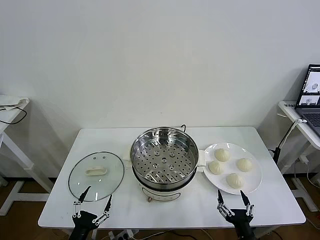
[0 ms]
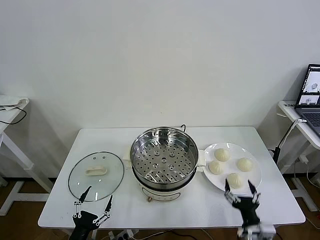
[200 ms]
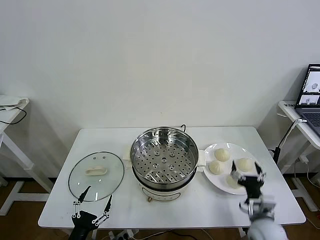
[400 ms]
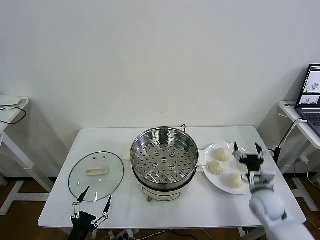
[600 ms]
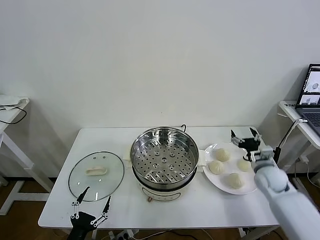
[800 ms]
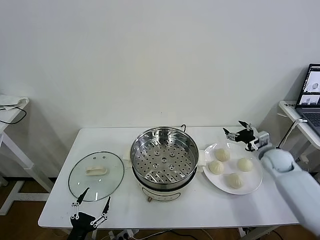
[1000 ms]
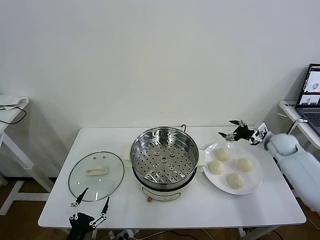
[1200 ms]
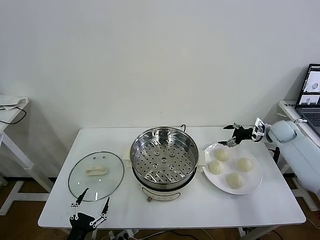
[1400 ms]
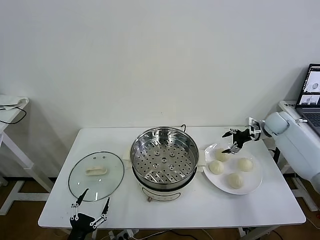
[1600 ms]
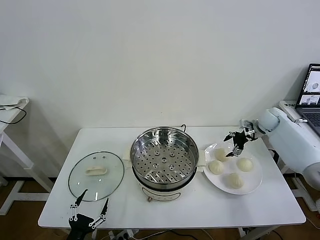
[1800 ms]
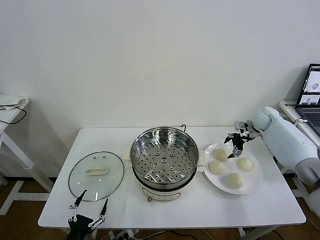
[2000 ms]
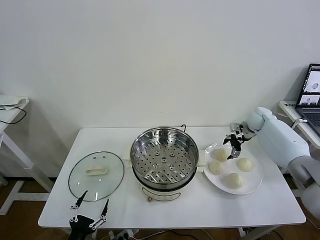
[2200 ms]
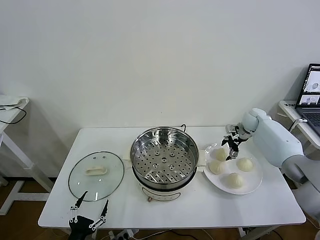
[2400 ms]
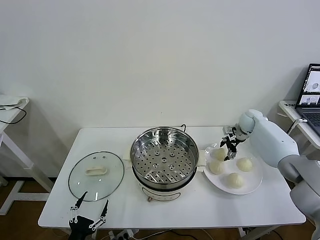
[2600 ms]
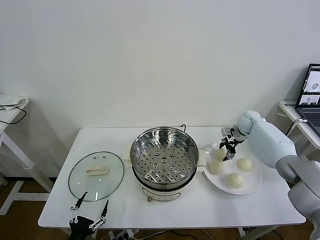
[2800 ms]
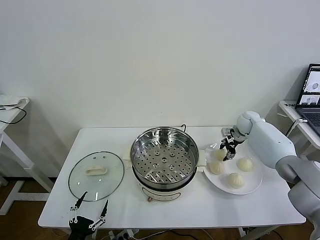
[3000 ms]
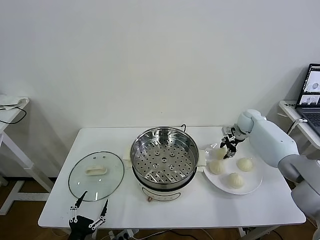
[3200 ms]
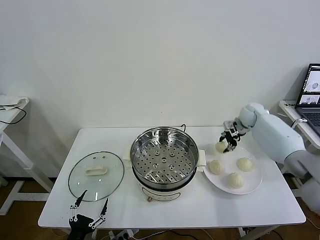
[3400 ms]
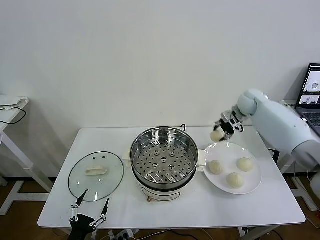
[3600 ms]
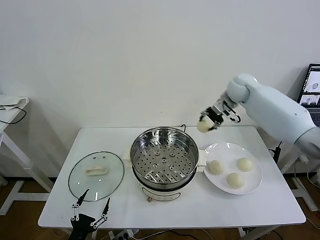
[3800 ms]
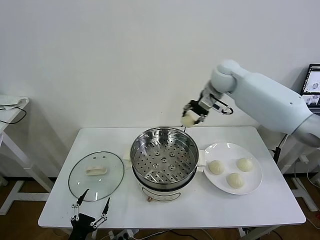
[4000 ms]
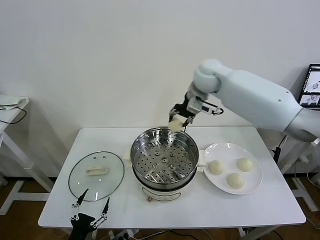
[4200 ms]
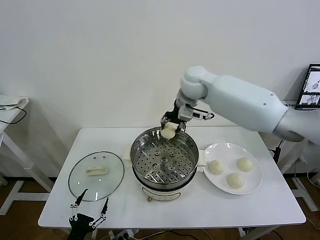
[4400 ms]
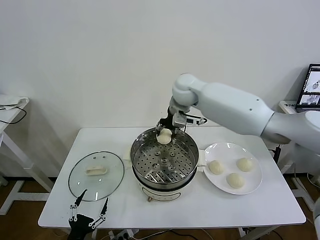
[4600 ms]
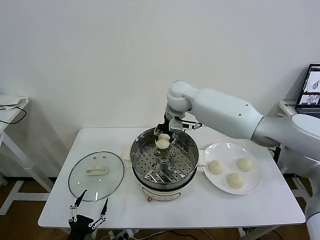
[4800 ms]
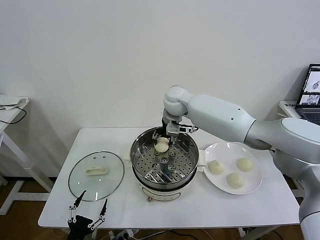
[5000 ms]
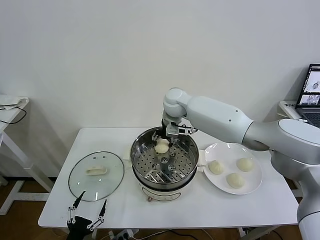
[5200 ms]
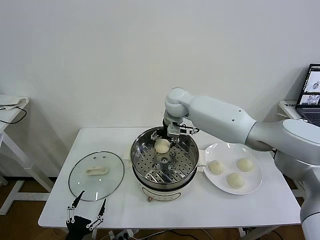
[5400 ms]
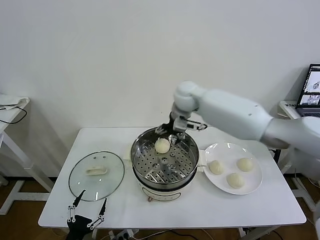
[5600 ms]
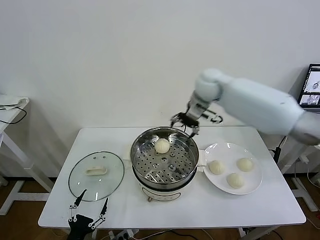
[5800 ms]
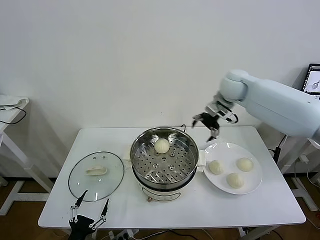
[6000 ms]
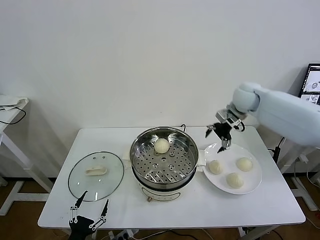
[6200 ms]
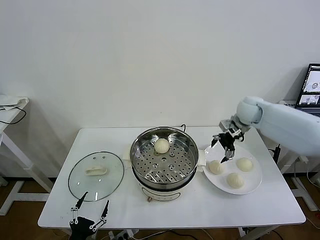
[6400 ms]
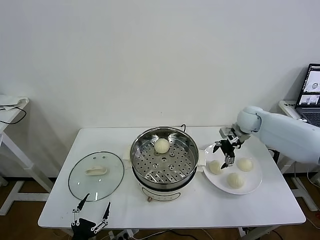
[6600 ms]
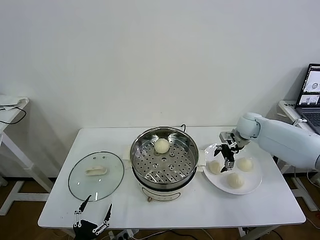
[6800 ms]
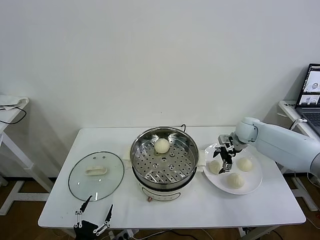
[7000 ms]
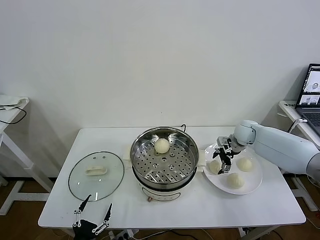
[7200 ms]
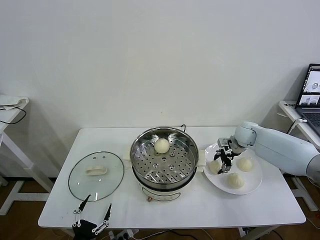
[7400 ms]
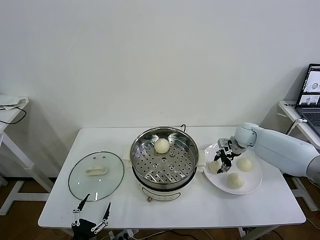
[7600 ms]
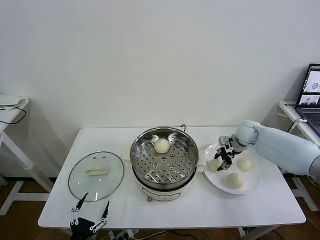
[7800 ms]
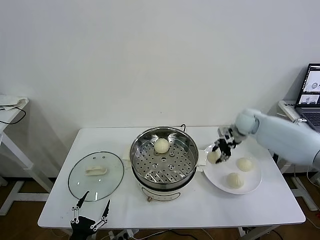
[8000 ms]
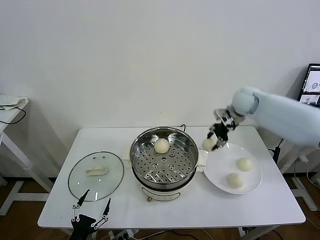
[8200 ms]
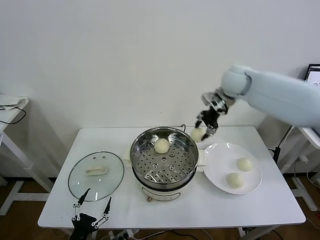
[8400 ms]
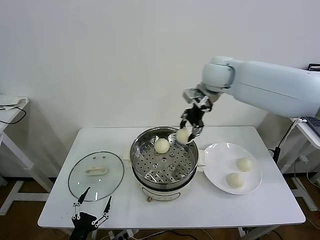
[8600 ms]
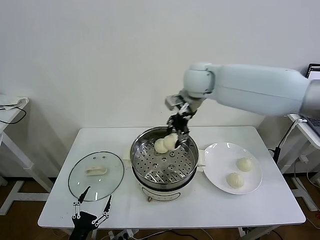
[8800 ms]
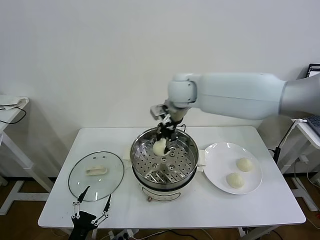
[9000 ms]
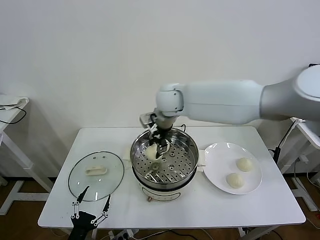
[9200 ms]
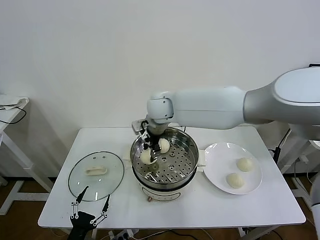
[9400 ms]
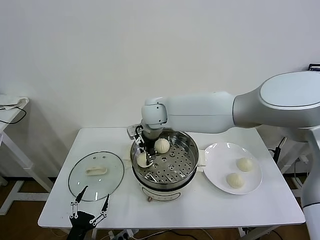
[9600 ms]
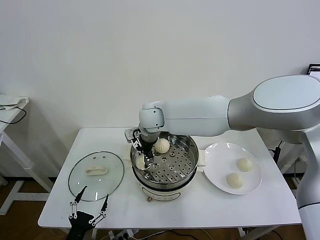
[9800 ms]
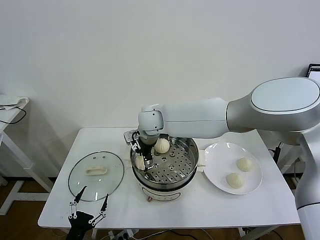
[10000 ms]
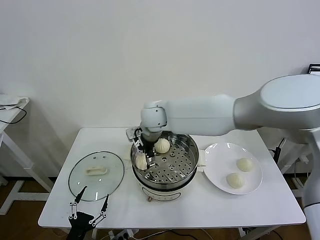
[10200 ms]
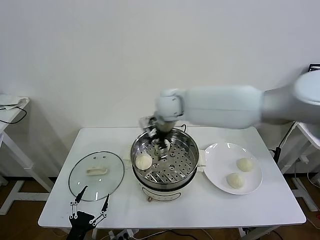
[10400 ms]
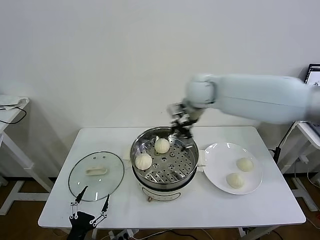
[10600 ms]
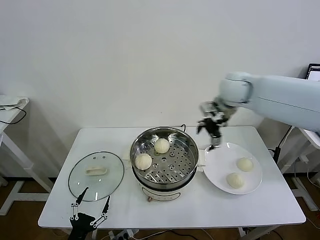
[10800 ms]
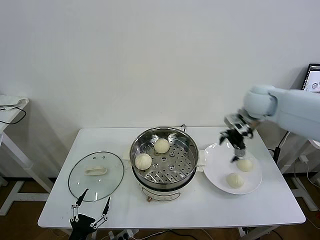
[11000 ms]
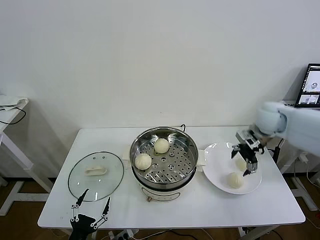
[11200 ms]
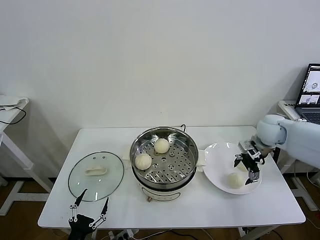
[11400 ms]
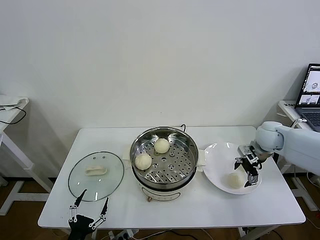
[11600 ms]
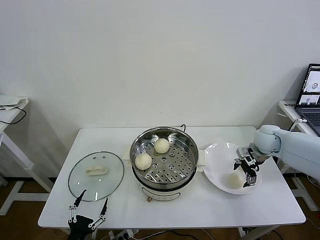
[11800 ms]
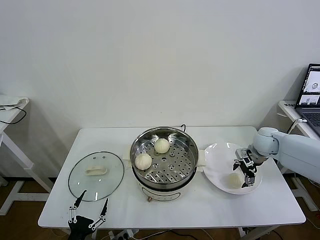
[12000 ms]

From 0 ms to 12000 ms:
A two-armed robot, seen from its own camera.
Task of the whole recording: take steamed baozi put them in steamer then cover it.
Step, from 0 ms to 3000 ms: Grasp the baozi in the plate with right gripper.
Step, from 3200 ms to 5400 ms: Place the baozi on the steamer with right gripper.
Step, from 5600 ms to 7600 ms: Grasp the baozi in the plate with right gripper.
Step, from 7800 ms to 10000 ms: Place the baozi on the steamer with right gripper.
From 1600 ms to 3000 ms: The right gripper travels to the left by roughly 5 cm, and closes.
From 3000 ms to 4400 ms: The right gripper moves to the left and upward, some 35 cm.
From 4400 ms to 6000 ms: The right gripper travels to the right by roughly 20 cm, and opens.
From 6000 ms to 7600 ms: The right gripper heads downward, covering roughly 20 cm, and closes its fingers.
From 7600 ms to 9000 ms: The right gripper heads to the left and upward, covering about 35 cm.
From 9000 ms to 10400 ms: The right gripper reaches some 5 cm to the left, then returns, and opens.
From 10400 ms to 12000 ms: The right gripper travels to the right and downward by about 35 cm.

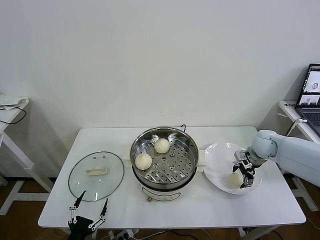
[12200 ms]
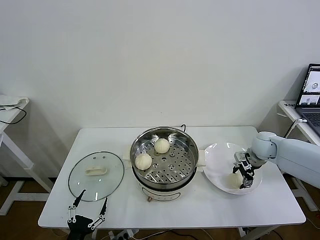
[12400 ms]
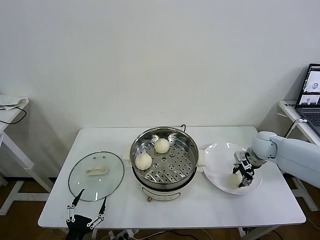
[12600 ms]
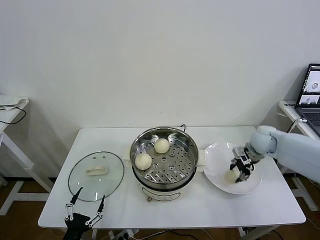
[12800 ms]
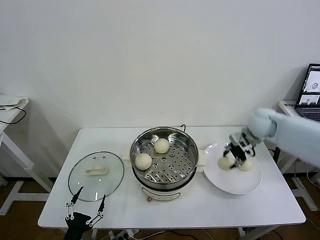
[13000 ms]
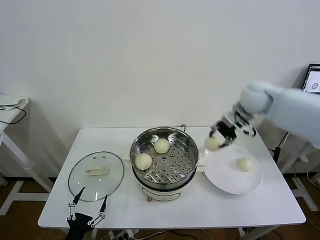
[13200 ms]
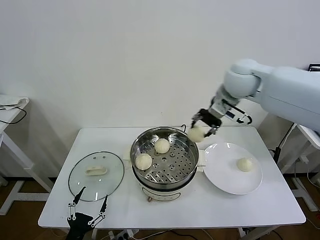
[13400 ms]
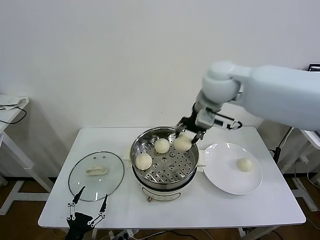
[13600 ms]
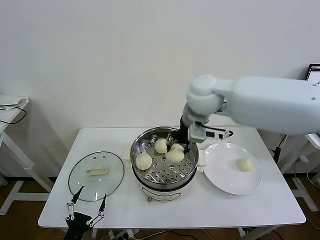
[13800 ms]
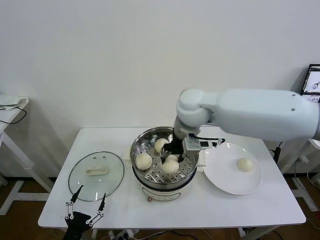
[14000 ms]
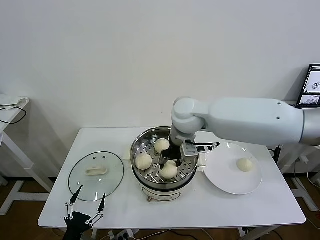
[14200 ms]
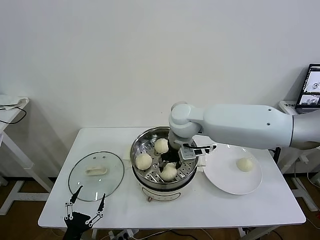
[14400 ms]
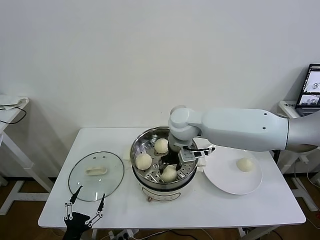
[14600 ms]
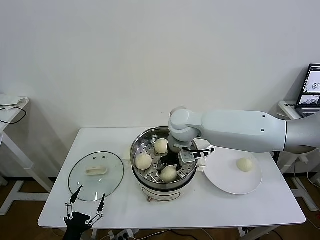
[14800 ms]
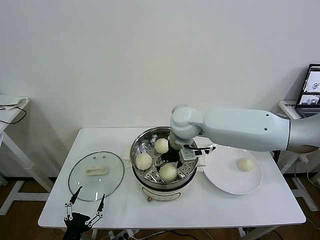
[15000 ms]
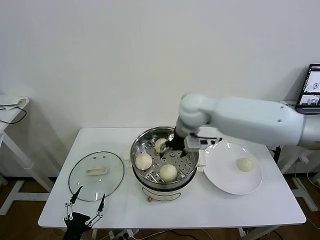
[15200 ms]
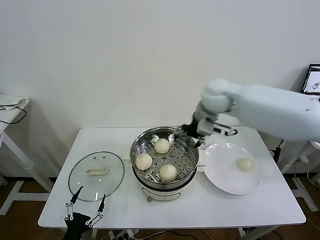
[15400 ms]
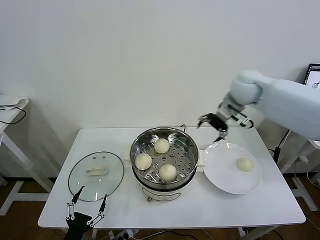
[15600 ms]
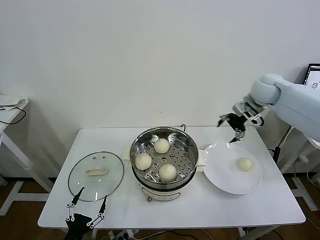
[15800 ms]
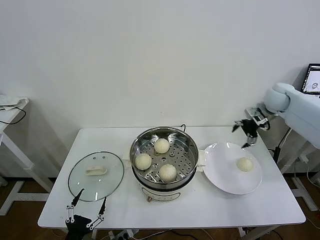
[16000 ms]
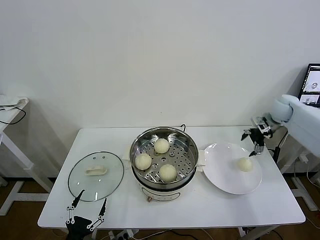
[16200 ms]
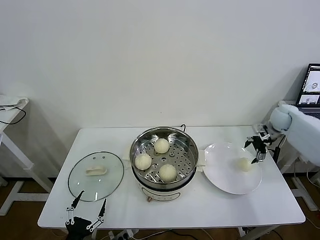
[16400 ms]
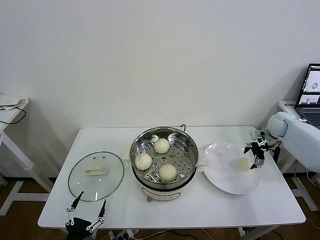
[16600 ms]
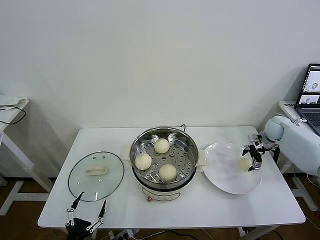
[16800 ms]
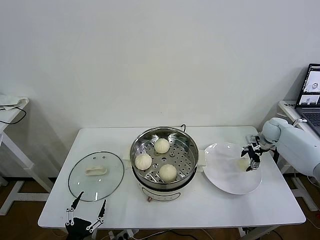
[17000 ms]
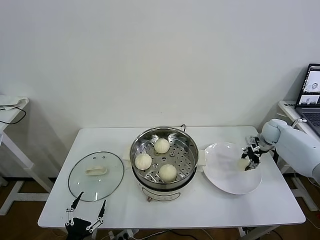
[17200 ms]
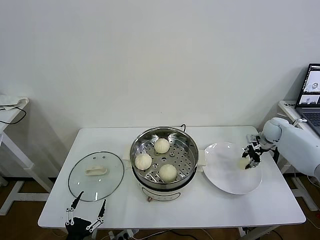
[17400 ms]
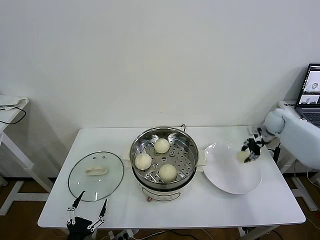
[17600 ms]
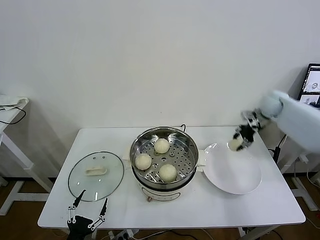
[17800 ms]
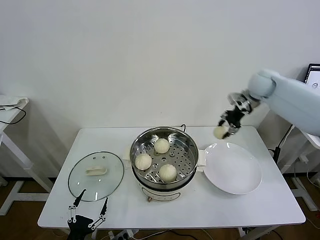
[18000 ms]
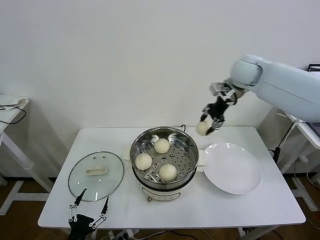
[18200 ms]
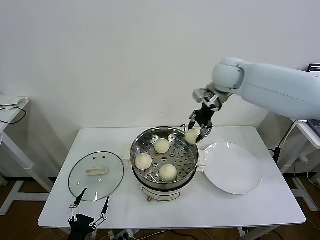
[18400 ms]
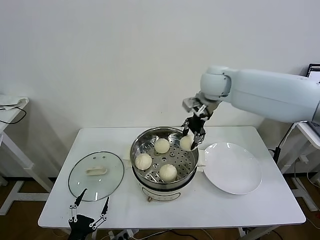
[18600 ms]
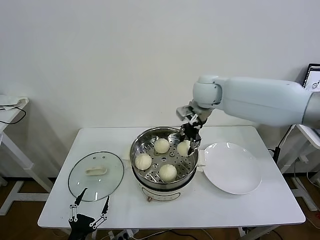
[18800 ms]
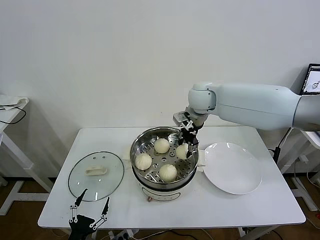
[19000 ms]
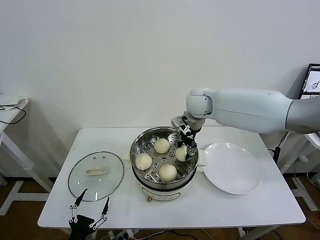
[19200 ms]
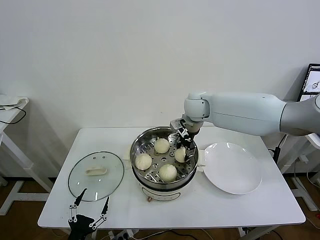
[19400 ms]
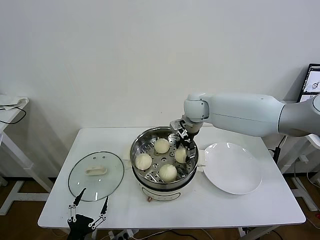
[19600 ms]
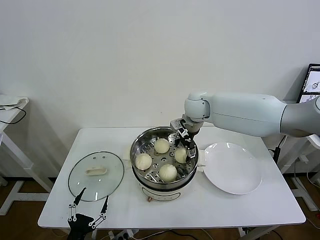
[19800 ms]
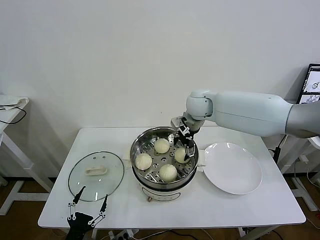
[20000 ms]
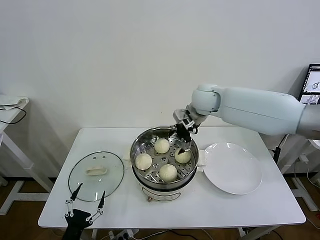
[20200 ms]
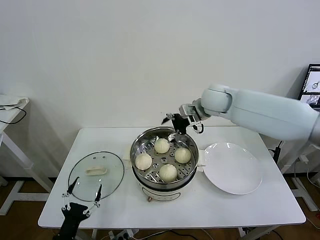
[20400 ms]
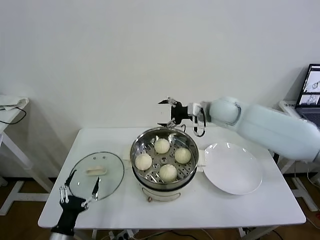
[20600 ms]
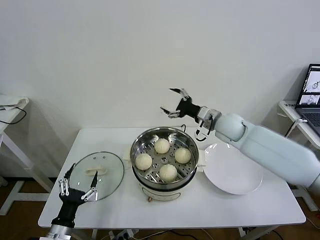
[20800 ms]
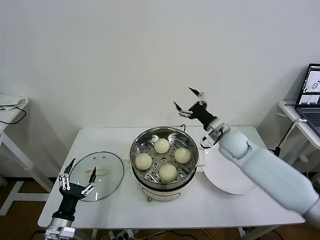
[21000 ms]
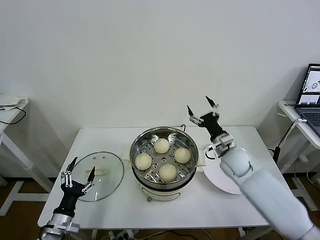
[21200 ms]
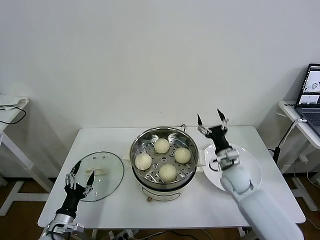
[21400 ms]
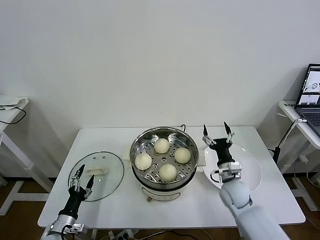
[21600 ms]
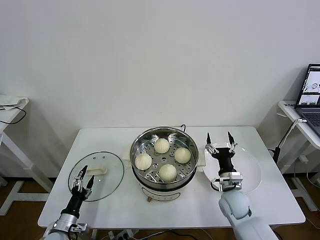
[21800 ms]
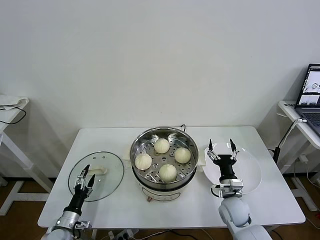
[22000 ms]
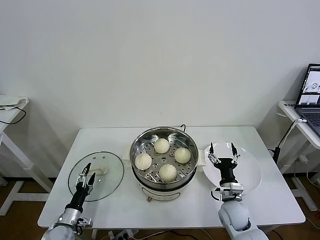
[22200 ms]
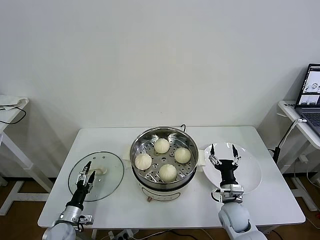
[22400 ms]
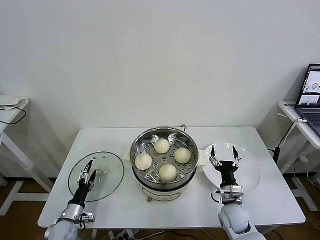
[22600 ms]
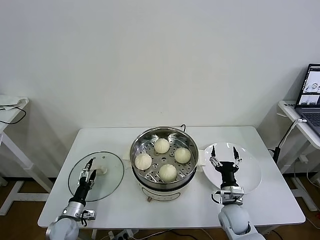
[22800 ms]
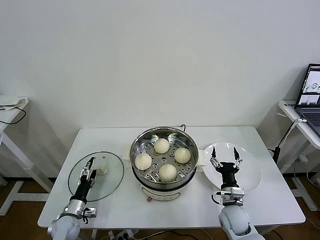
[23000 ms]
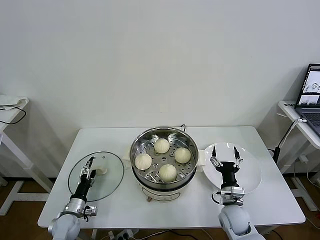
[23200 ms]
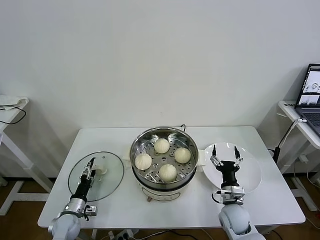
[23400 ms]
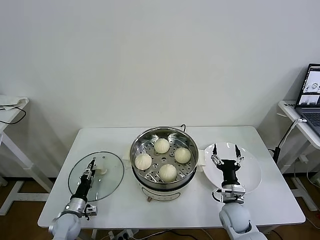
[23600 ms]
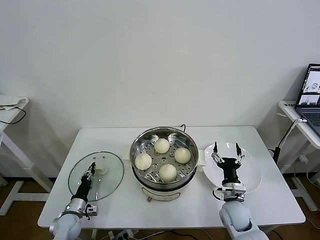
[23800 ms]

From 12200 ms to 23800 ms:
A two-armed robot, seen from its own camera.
Task of the whole recording: take steamed baozi put them in steamer then cover it.
Step, from 12800 ms to 14800 ms: Place the baozi on the steamer with right gripper.
Step, from 15000 ms to 17200 ms: Grasp the baozi in the plate with right gripper.
Step, from 17400 ms to 19800 ms: Place the baozi on the steamer with right gripper.
From 12200 ms to 13600 ms: The right gripper shifts roughly 35 cm upward and to the left, and closes its fingers.
From 13600 ms to 15000 ms: The right gripper goes roughly 10 cm downward and to the left, and opens.
From 15000 ms to 16600 ms: The right gripper is displaced to the right by roughly 40 cm.
From 16600 ms to 18000 ms: The right gripper moves upward and to the left, approximately 25 cm, and closes its fingers.
From 18000 ms to 19400 ms: The right gripper is displaced to the left by some 20 cm.
From 19400 ms to 21000 ms: The left gripper travels forward by some 10 cm; the right gripper is displaced to the right, downward and backward by some 20 cm, and opens up.
From 21000 ms to 22400 ms: The right gripper goes some 25 cm downward and backward; the left gripper goes about 15 cm downward and forward.
From 22400 ms to 23800 ms: The left gripper closes up.
